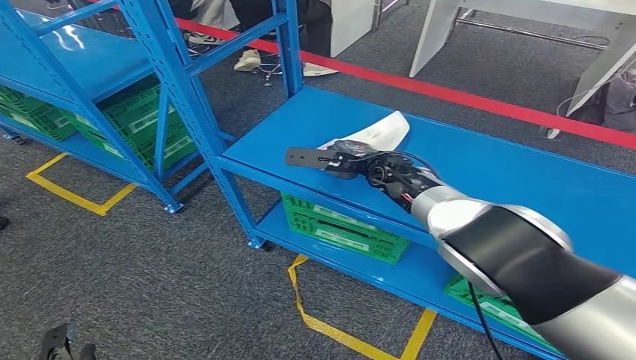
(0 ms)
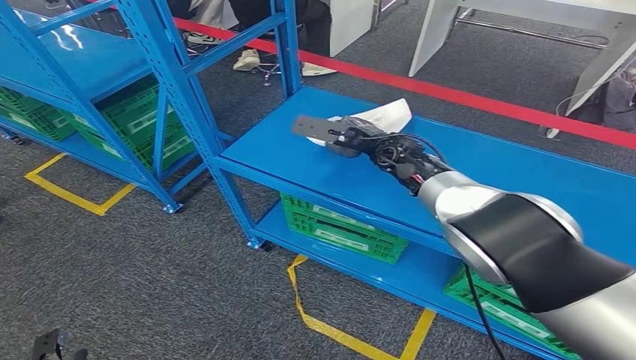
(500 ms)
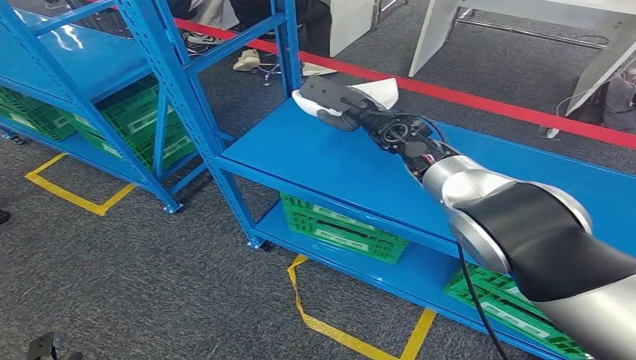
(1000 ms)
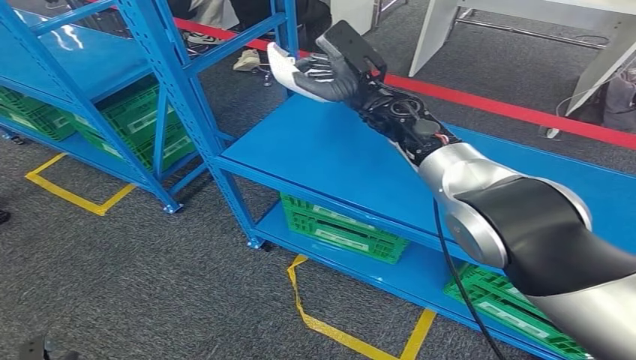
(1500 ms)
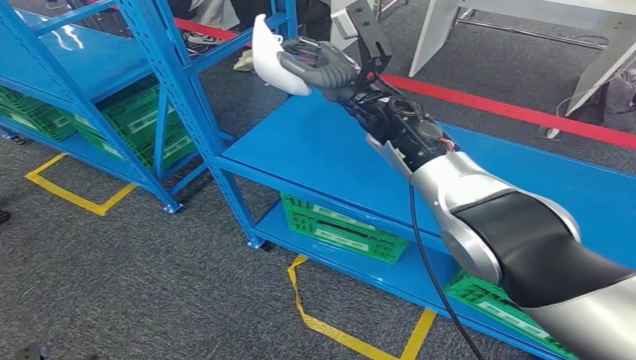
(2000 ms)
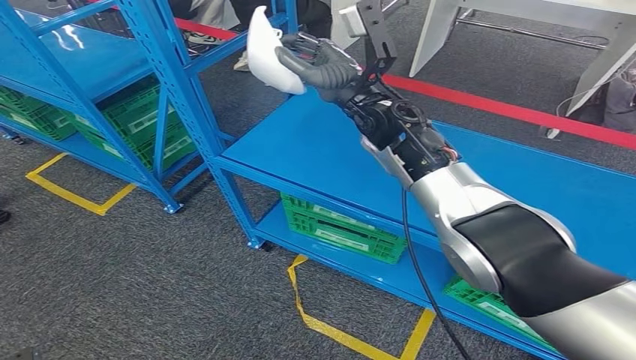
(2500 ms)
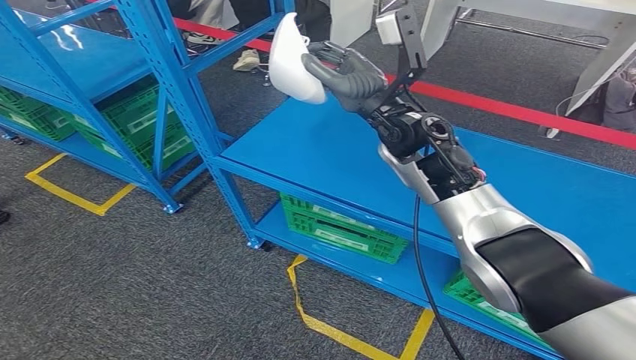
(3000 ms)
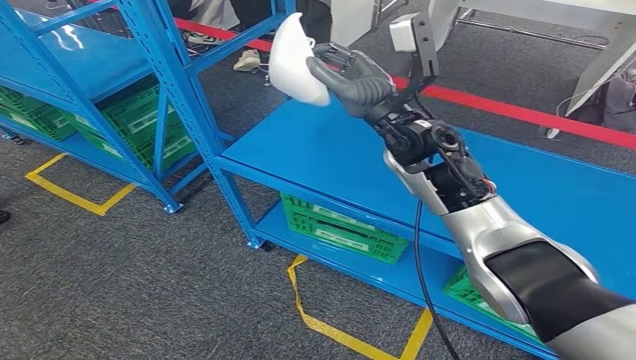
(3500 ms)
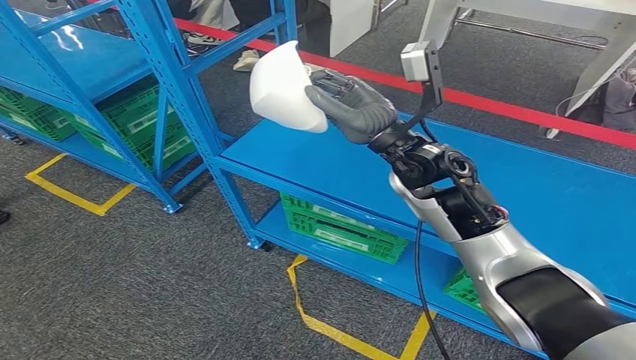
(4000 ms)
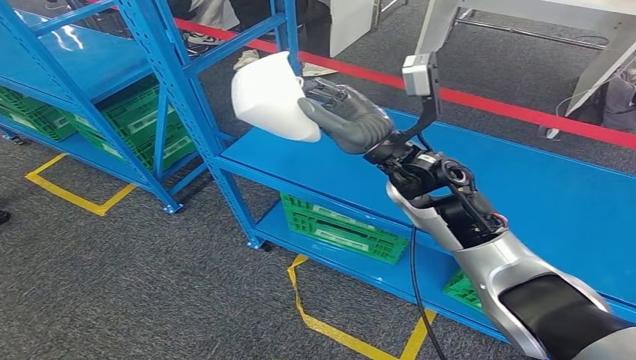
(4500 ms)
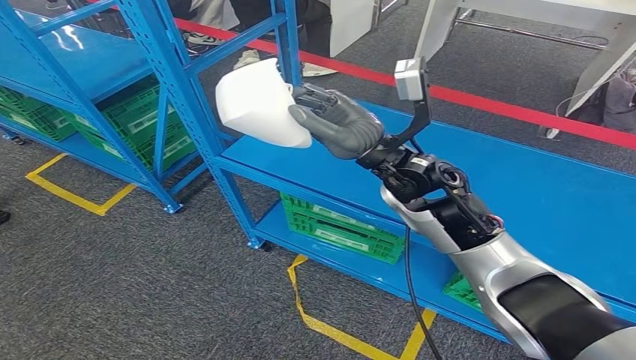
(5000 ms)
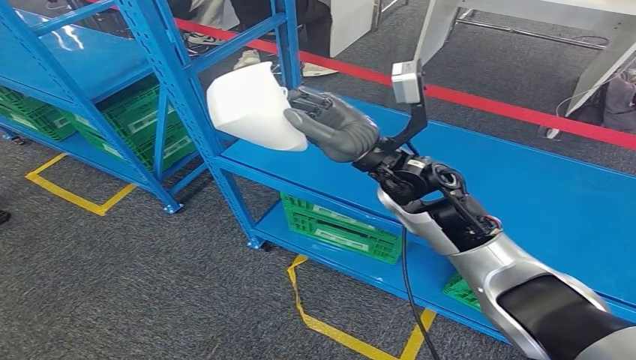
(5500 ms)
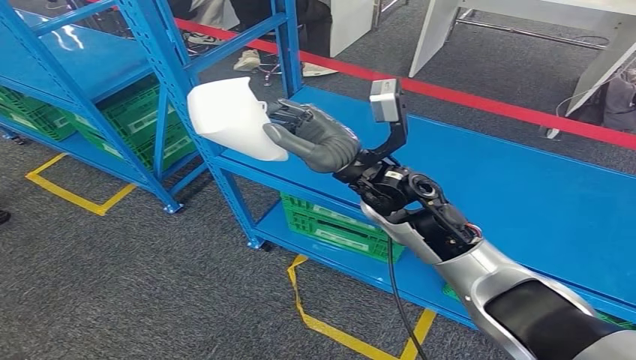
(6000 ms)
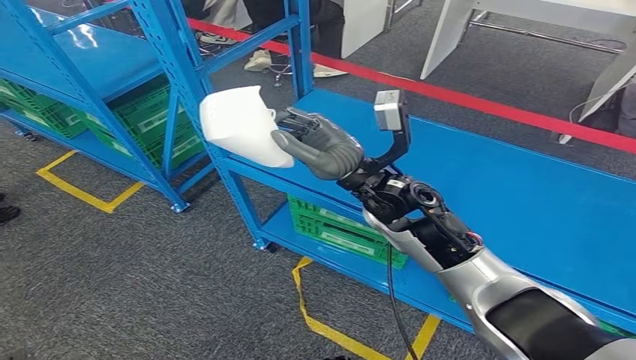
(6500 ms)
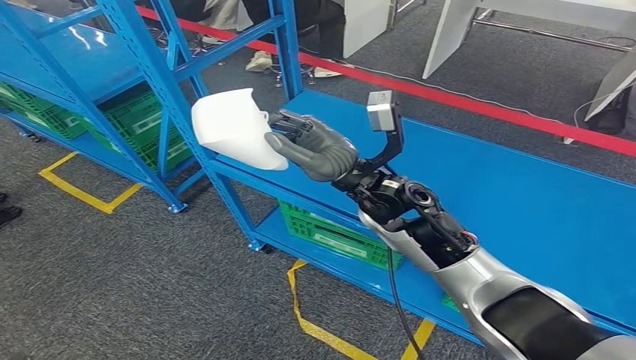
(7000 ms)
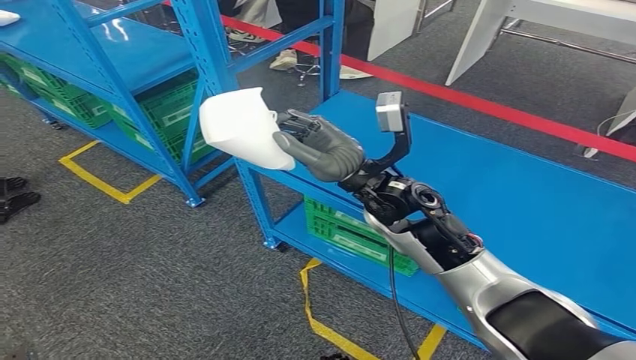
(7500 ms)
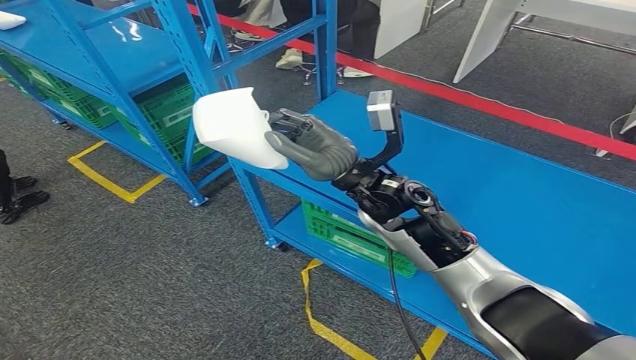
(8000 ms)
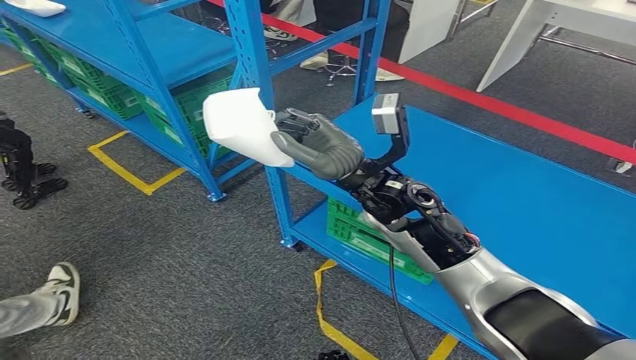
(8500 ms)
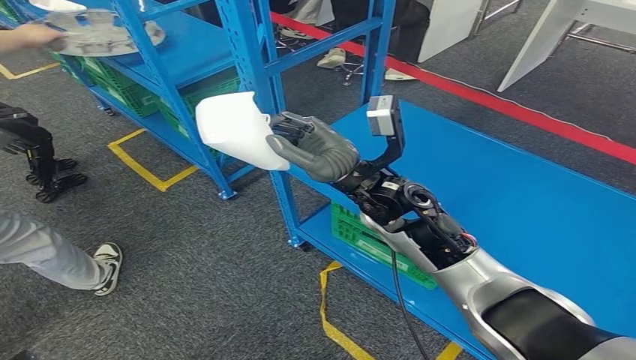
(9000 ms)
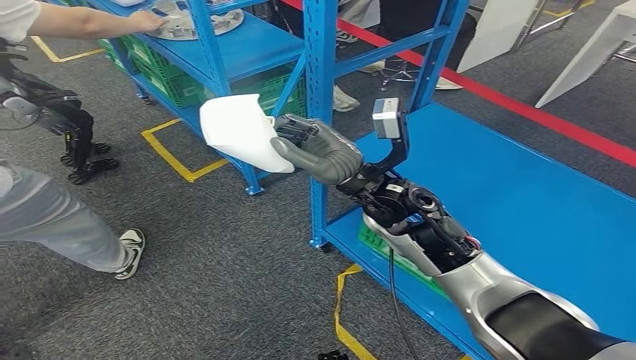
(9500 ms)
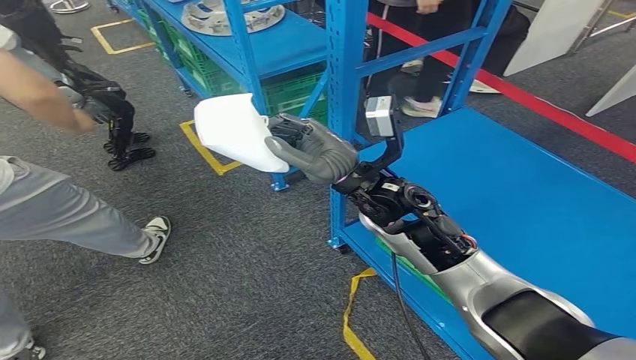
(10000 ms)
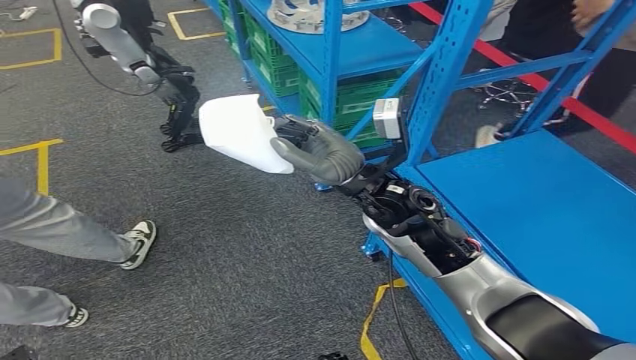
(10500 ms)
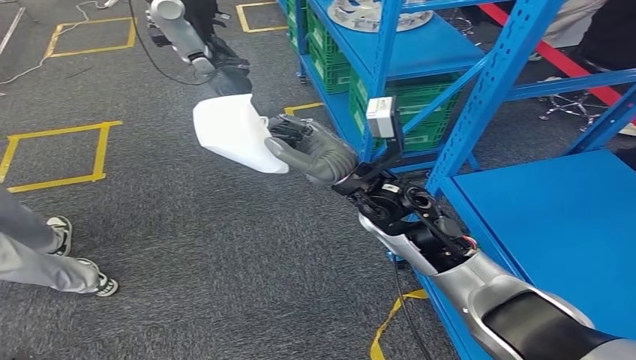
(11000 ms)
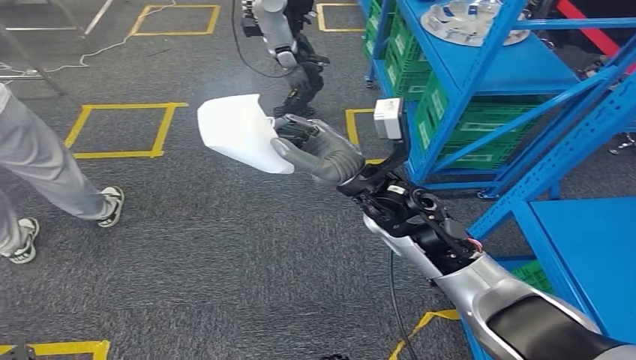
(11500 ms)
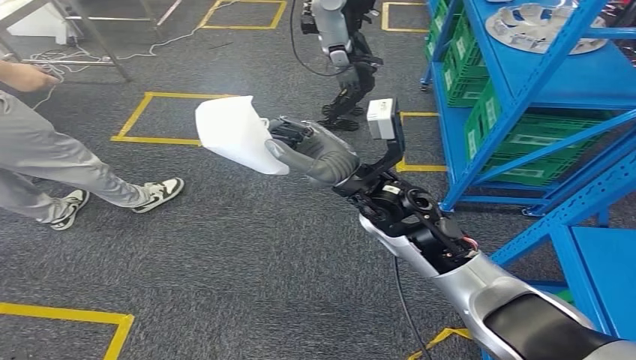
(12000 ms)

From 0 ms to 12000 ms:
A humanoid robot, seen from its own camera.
Step, from 0 ms to 2000 ms: Pick up the small parts from the shelf.
From 0 ms to 2000 ms: The right hand moves upward, some 15 cm.
From 2000 ms to 4000 ms: The right hand goes about 10 cm backward.
From 4000 ms to 6000 ms: The right hand moves approximately 5 cm.

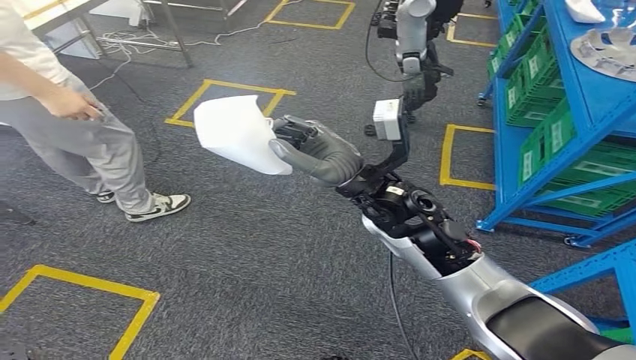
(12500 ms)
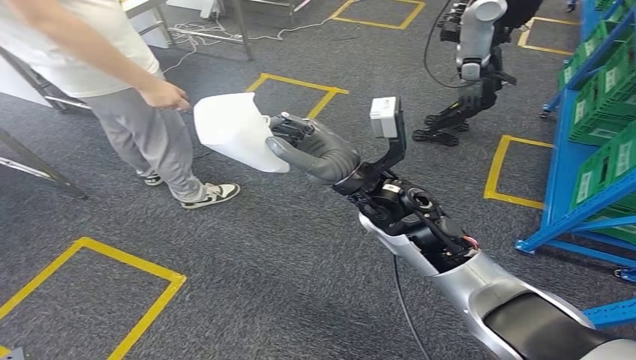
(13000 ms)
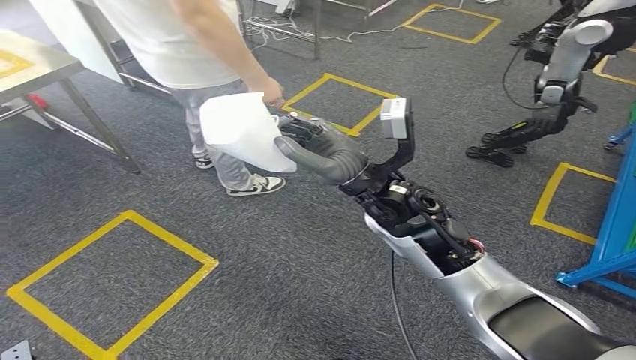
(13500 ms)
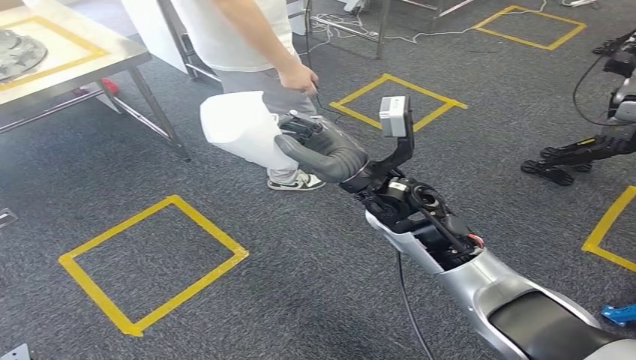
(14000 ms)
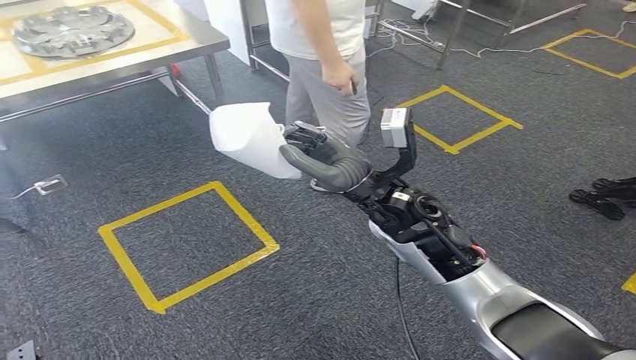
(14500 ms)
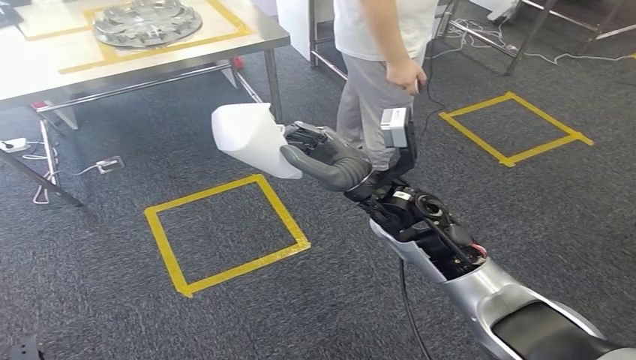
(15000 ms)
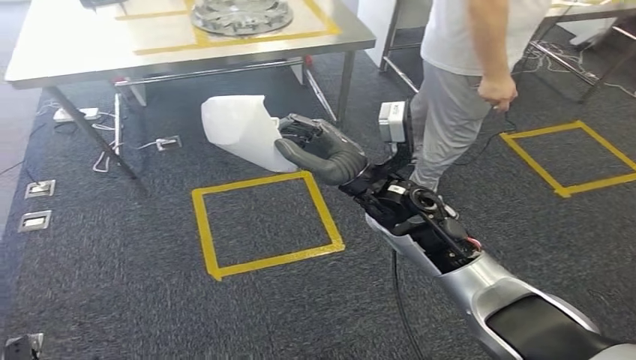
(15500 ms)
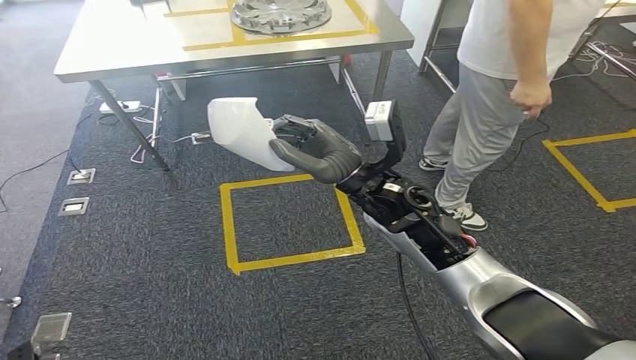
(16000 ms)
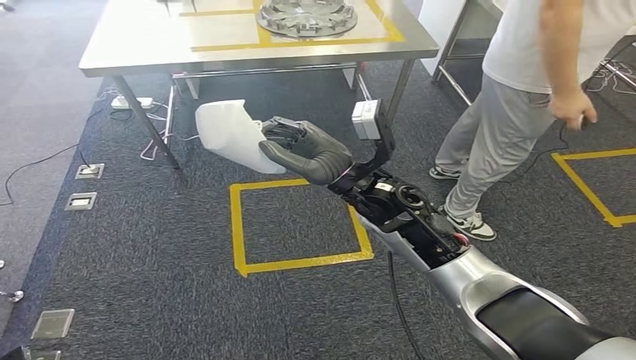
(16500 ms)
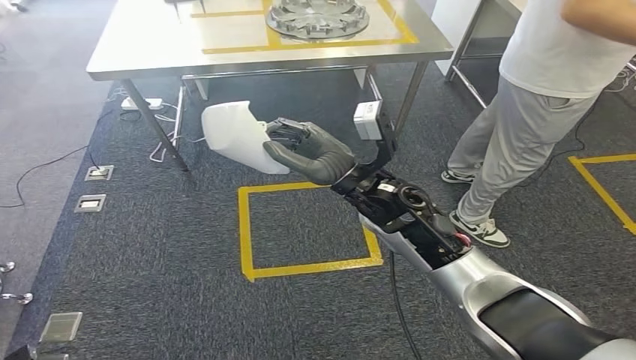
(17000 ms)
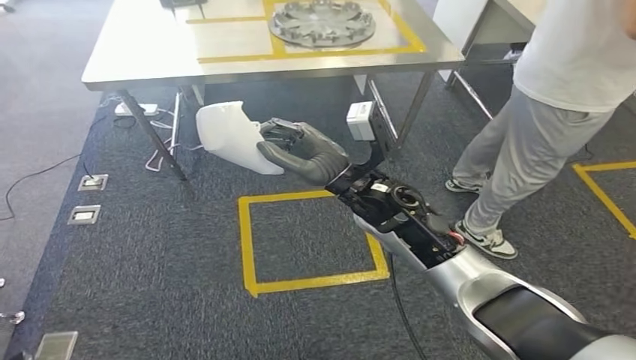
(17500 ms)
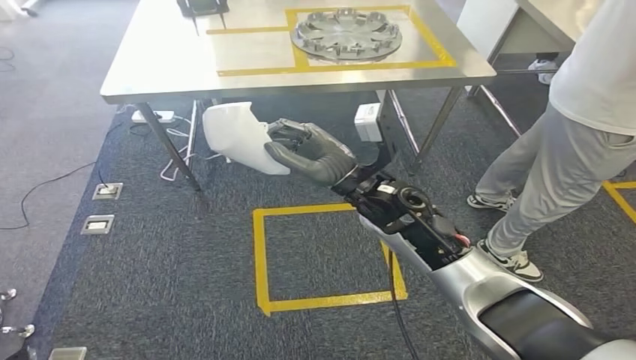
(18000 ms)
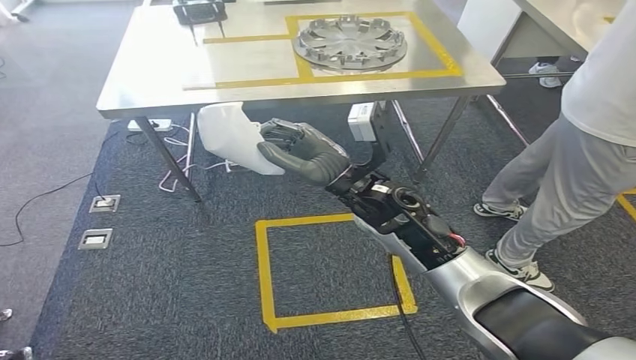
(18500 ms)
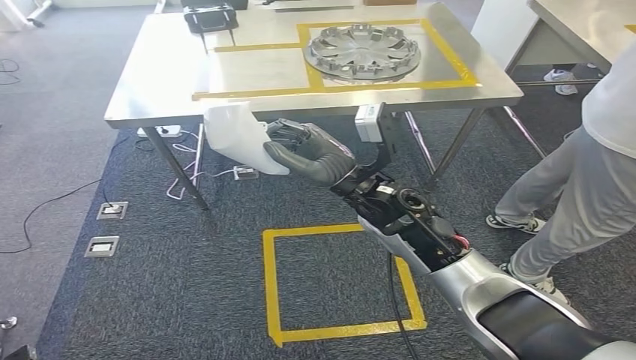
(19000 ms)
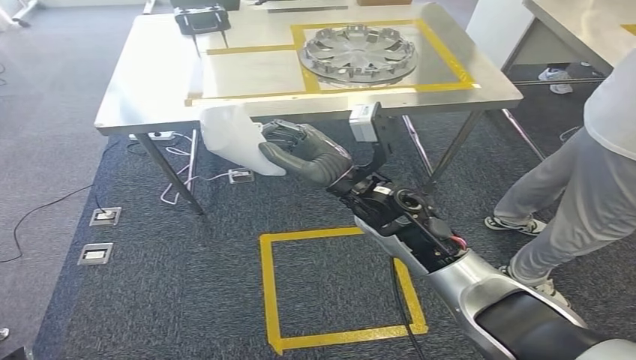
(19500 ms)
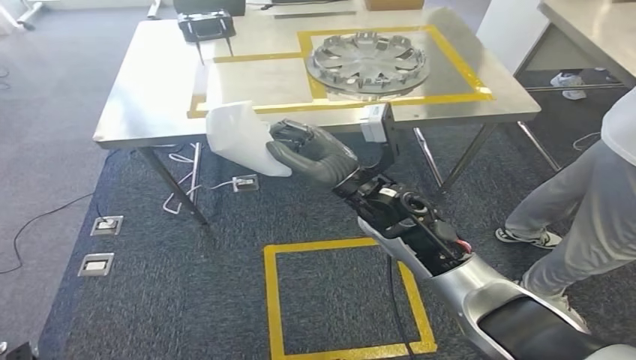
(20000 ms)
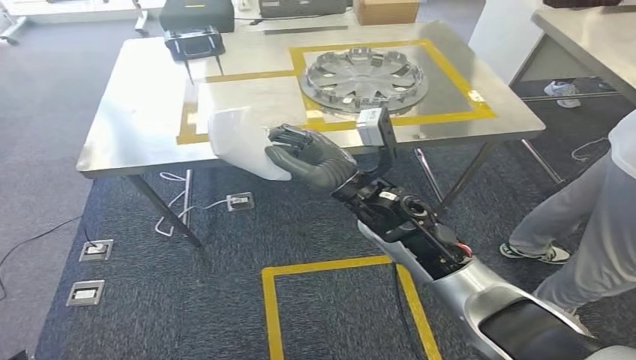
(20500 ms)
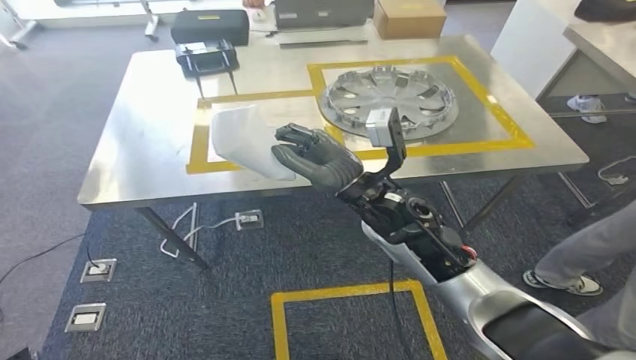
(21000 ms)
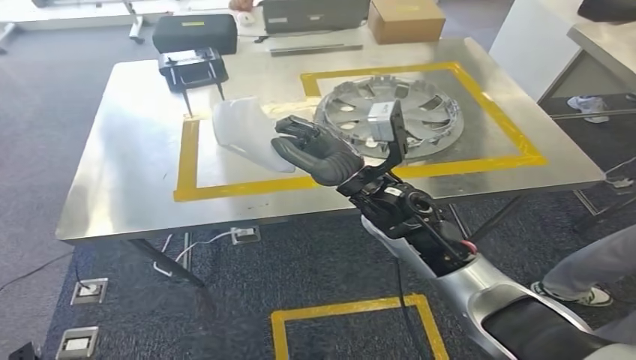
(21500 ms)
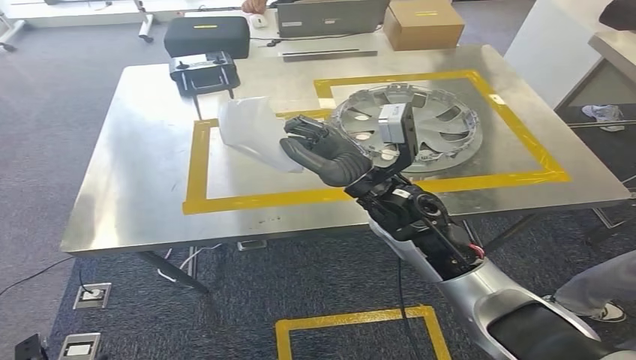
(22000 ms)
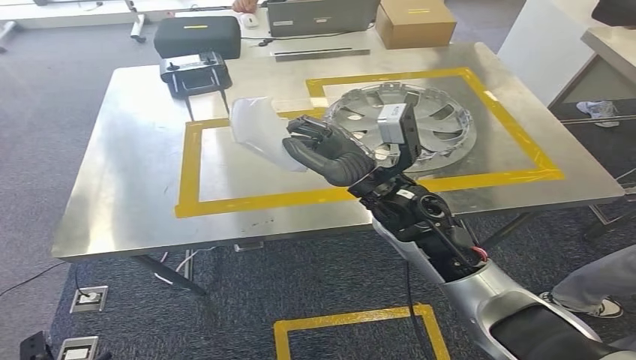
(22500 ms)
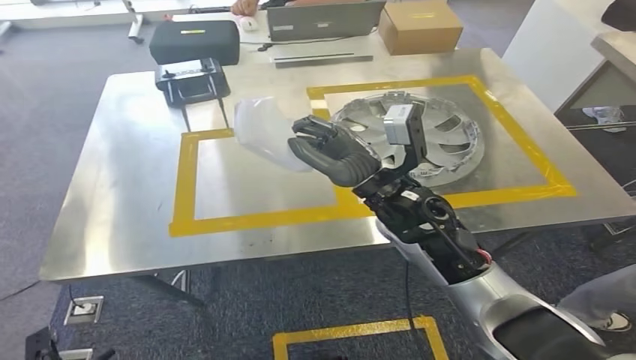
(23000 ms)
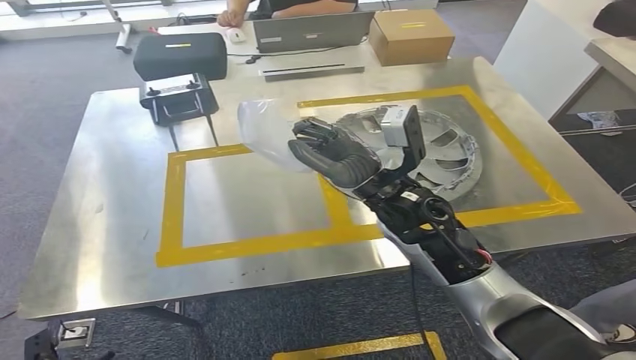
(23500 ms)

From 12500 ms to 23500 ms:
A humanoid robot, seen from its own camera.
Step, from 12500 ms to 23000 ms: Move the small parts to the workbench.
